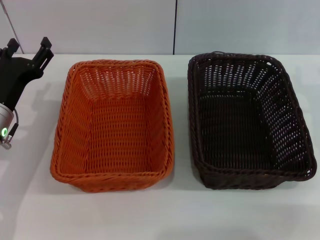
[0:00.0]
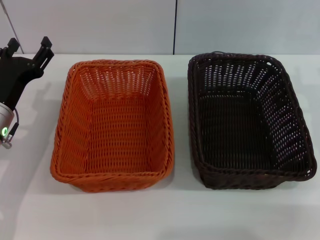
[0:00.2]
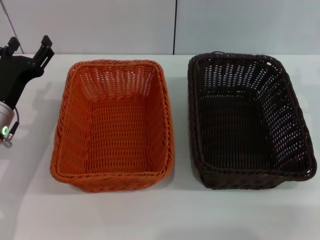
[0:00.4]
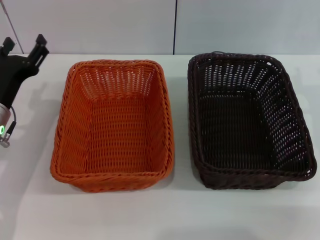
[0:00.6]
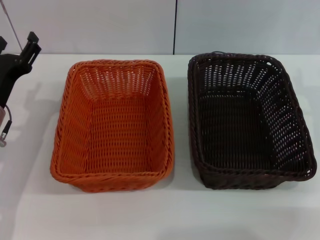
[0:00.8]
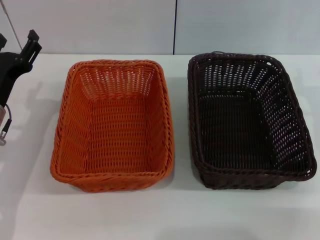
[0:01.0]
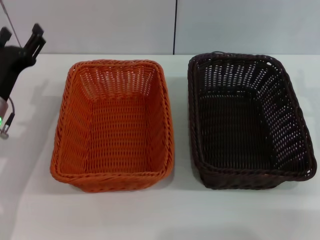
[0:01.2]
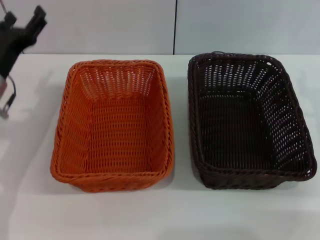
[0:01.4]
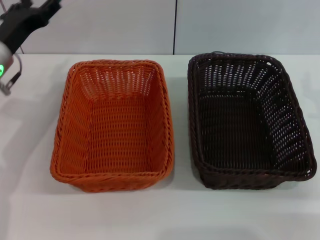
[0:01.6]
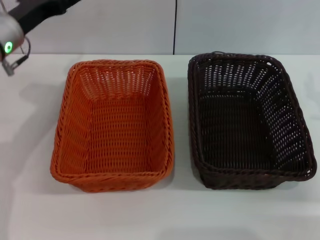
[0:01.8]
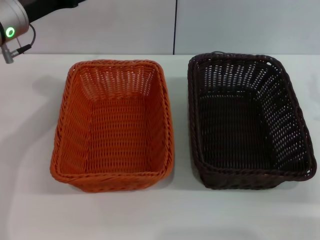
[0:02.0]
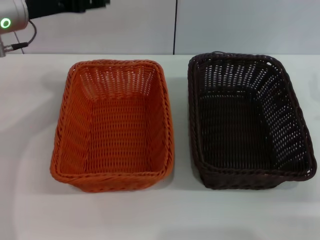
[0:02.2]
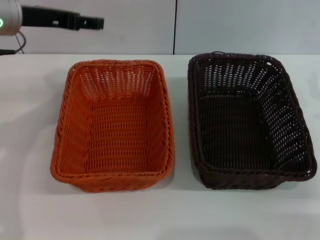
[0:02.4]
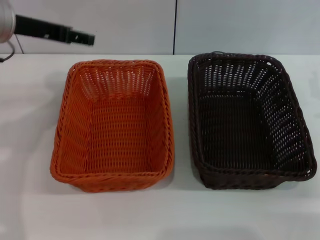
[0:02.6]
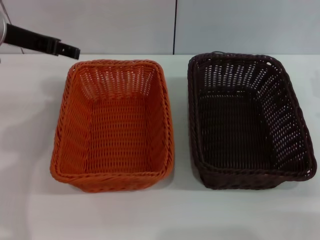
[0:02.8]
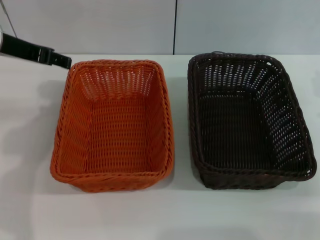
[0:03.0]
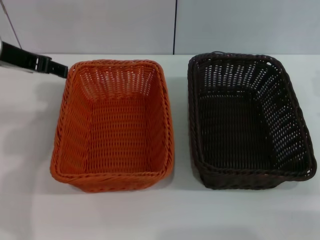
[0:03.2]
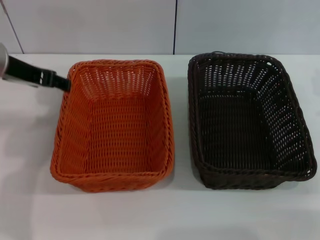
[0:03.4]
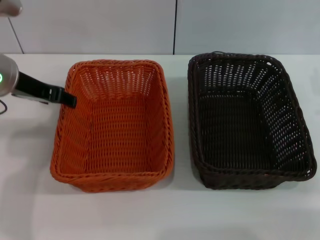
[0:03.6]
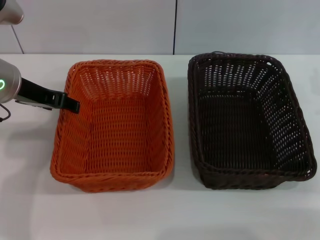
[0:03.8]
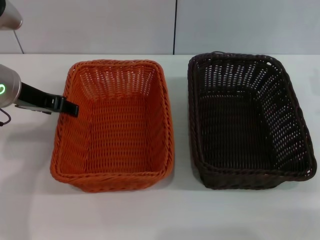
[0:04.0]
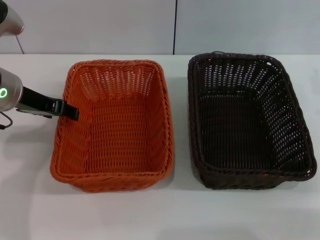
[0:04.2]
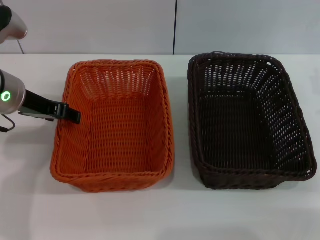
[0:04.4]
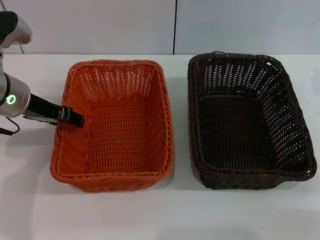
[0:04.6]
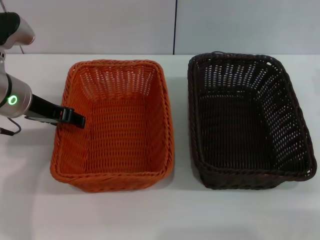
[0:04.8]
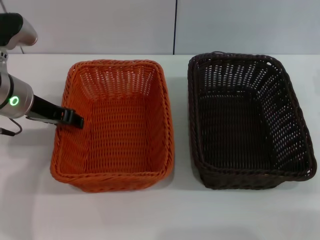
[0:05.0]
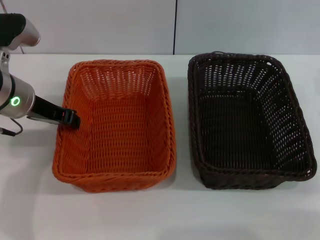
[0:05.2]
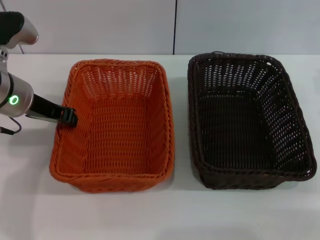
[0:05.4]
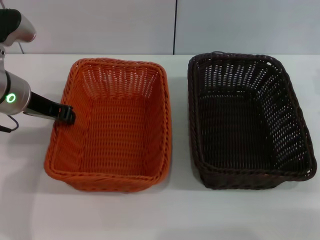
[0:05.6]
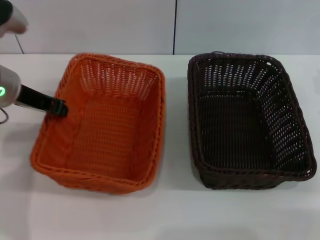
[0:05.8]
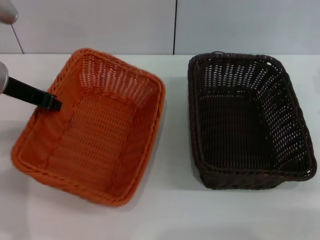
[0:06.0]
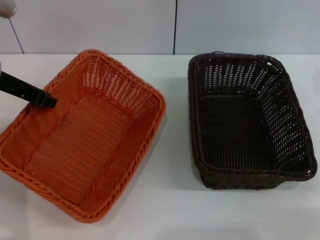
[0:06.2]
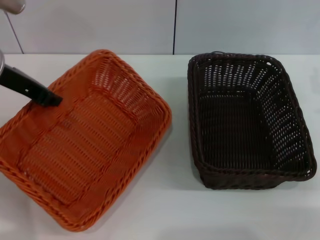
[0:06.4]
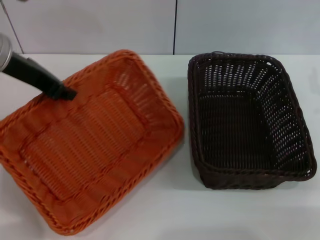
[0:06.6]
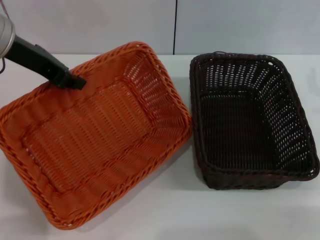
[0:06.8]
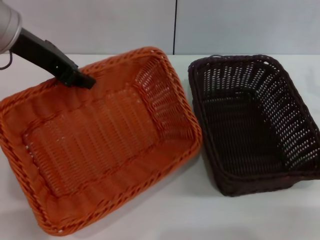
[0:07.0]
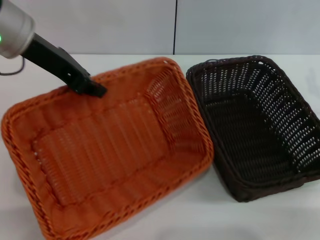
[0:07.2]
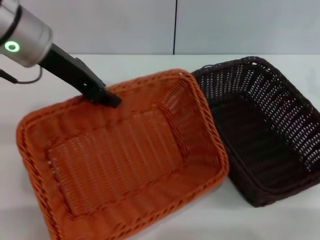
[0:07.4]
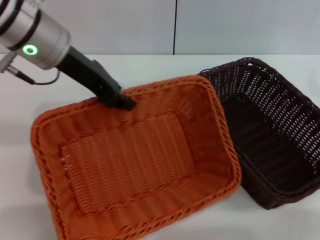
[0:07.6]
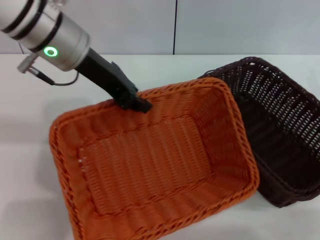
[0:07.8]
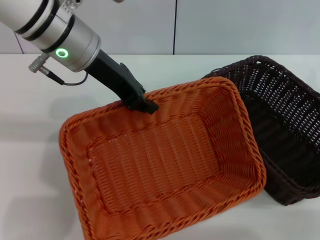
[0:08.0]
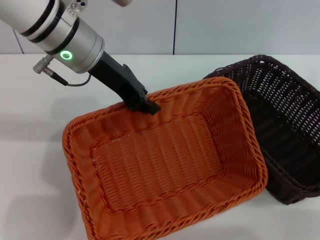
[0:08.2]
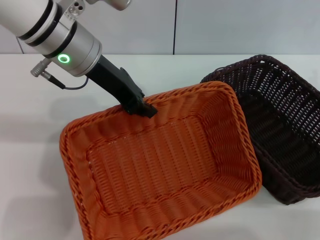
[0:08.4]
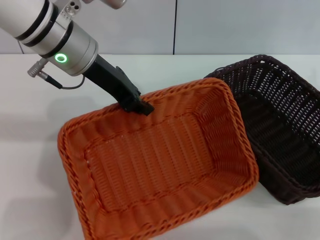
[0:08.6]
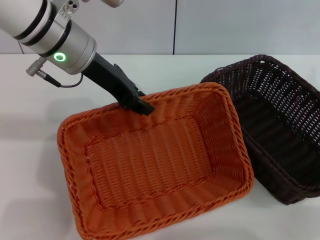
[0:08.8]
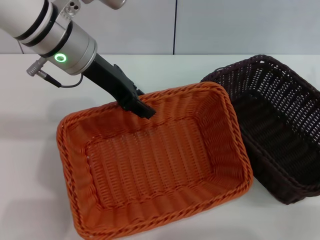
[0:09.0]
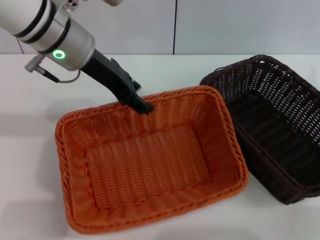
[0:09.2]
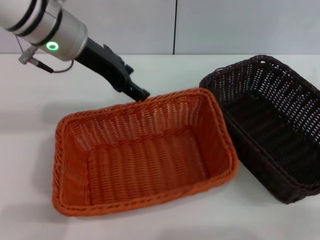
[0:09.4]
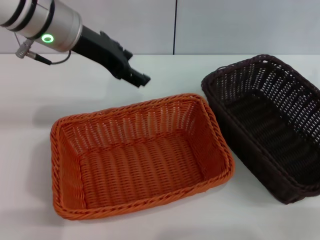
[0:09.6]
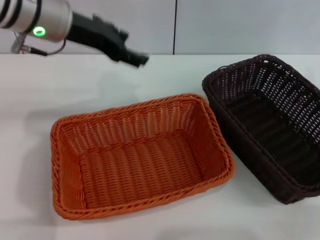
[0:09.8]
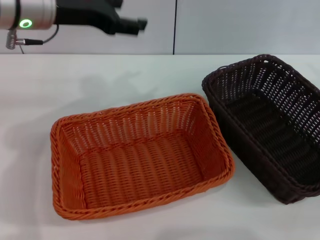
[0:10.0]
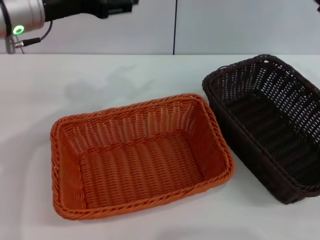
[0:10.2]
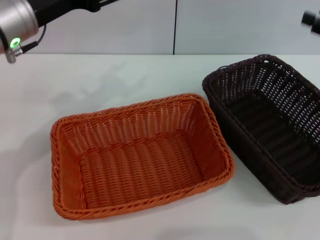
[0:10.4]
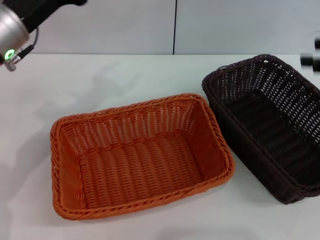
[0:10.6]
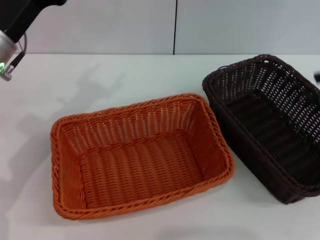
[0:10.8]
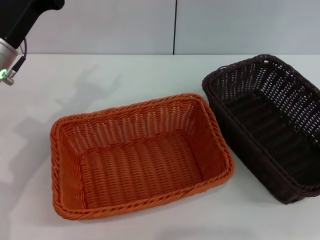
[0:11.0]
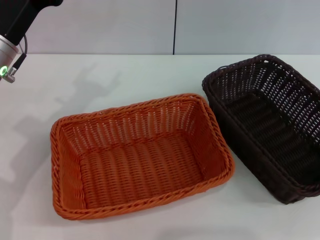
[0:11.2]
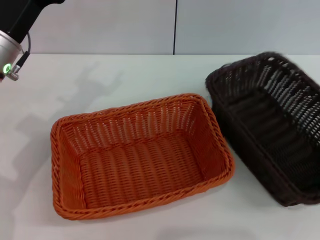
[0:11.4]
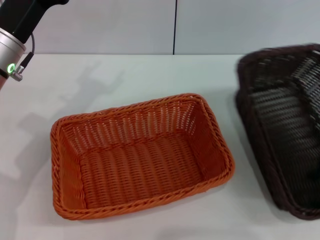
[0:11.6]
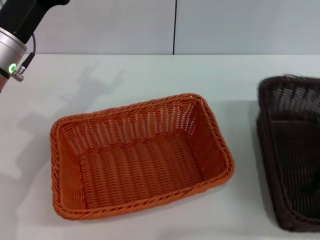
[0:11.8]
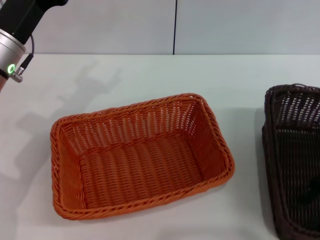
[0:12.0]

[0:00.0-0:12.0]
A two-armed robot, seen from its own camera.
Step, 0:00.0 to 0:06.2: Pick up the light basket with the left gripper.
Step, 0:06.6 to 0:09.4: Place the light basket in the center of view with the left gripper.
0:00.0 to 0:01.6: The left gripper is displaced upward and forward by approximately 10 cm.
0:01.6 to 0:03.0: The left gripper is displaced upward by roughly 10 cm.
0:03.0 to 0:04.4: The left gripper goes approximately 5 cm downward.
0:04.4 to 0:06.0: The left gripper closes its fingers.
0:06.0 to 0:07.6: The left gripper moves to the right and upward, about 10 cm.
0:09.0 to 0:10.4: The right gripper is displaced upward by some 10 cm; the left gripper moves to the left, roughly 5 cm, and opens its fingers.
0:10.4 to 0:12.0: The left gripper heads downward, covering about 5 cm. The right gripper heads backward and to the left, covering roughly 10 cm.

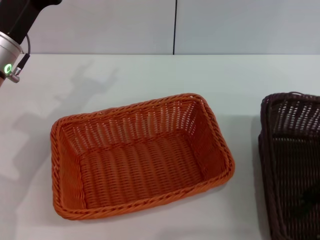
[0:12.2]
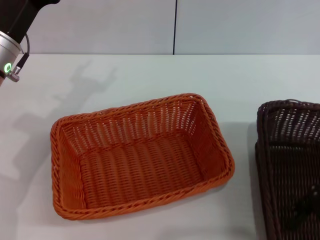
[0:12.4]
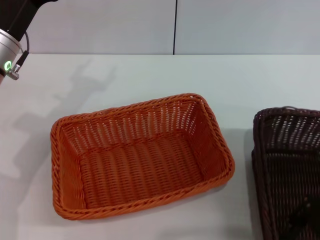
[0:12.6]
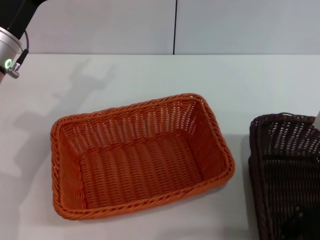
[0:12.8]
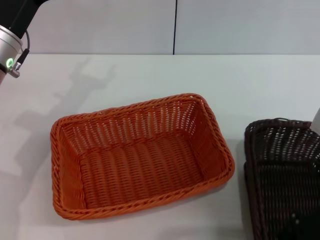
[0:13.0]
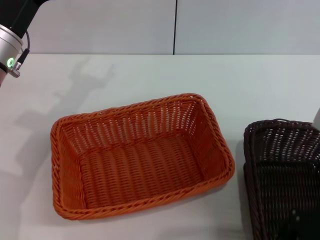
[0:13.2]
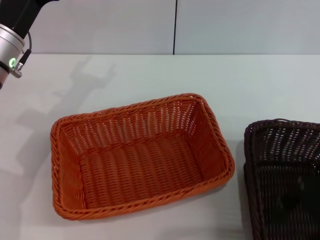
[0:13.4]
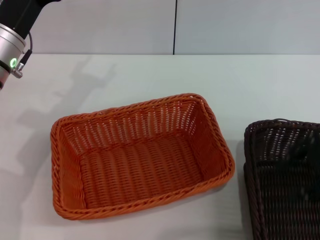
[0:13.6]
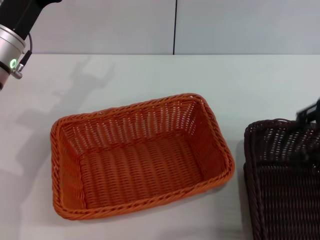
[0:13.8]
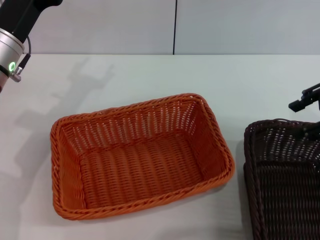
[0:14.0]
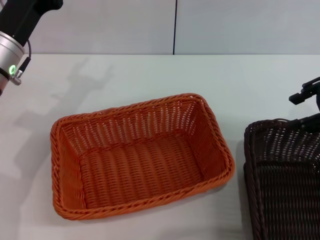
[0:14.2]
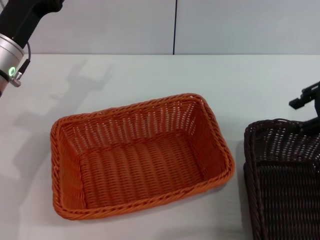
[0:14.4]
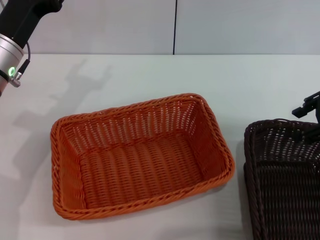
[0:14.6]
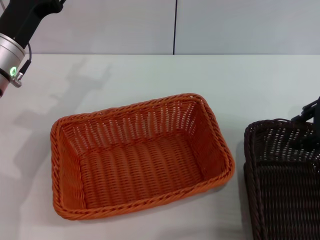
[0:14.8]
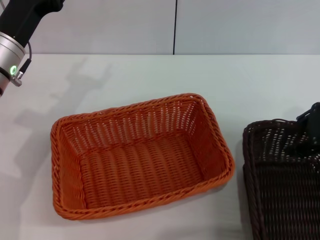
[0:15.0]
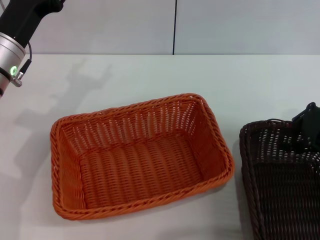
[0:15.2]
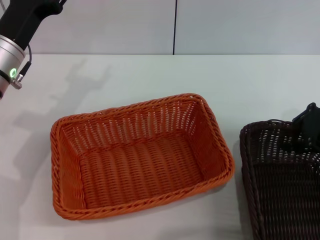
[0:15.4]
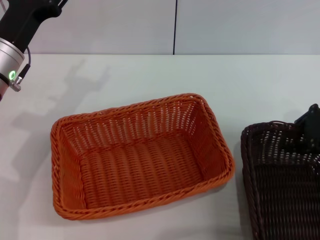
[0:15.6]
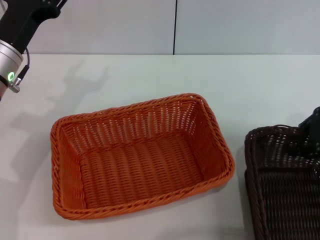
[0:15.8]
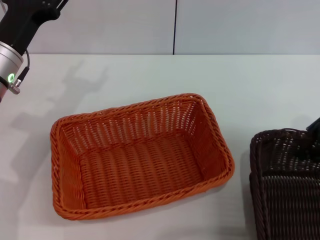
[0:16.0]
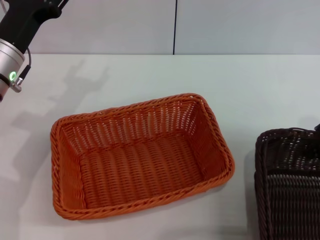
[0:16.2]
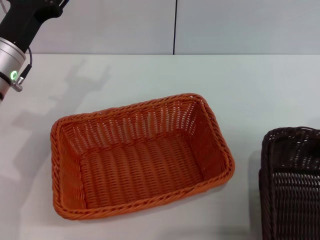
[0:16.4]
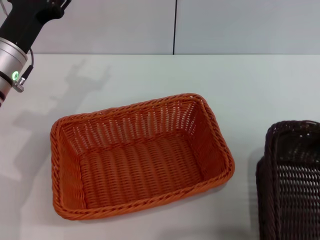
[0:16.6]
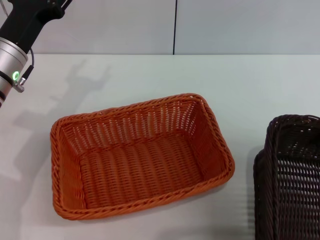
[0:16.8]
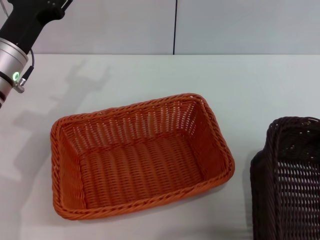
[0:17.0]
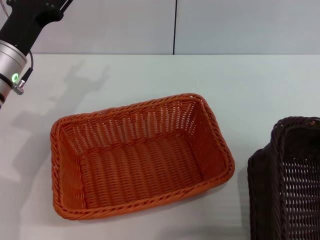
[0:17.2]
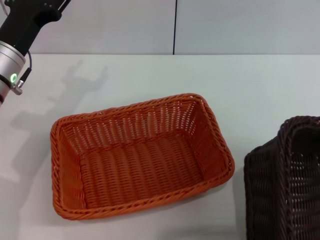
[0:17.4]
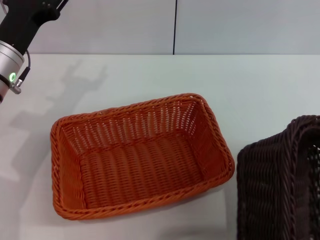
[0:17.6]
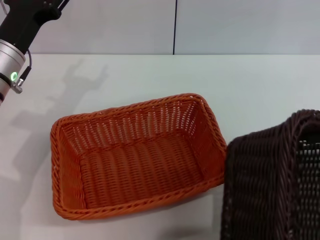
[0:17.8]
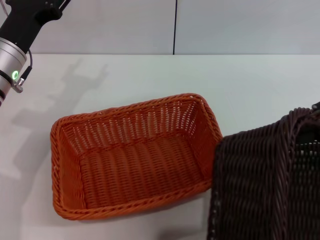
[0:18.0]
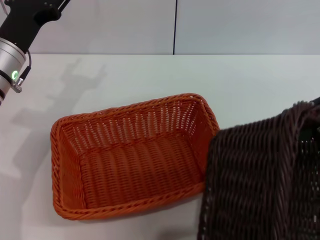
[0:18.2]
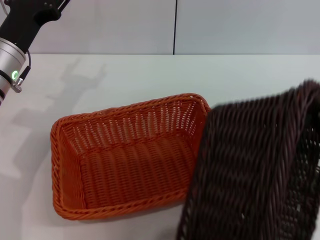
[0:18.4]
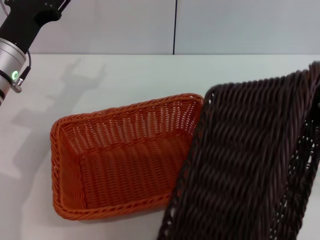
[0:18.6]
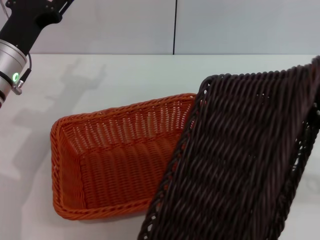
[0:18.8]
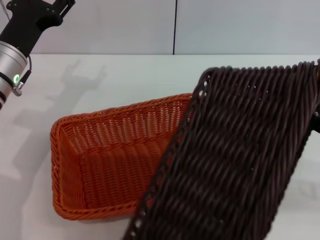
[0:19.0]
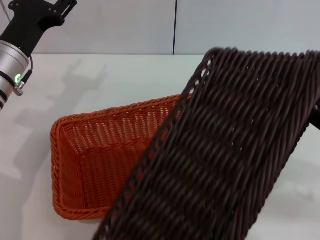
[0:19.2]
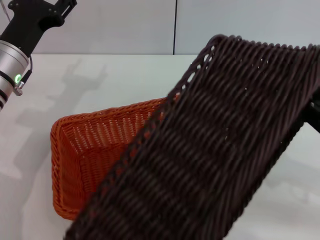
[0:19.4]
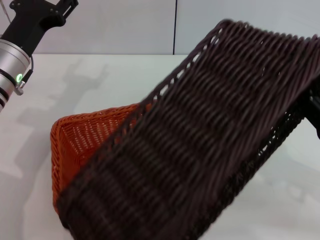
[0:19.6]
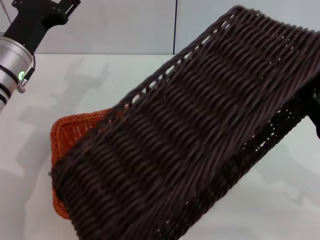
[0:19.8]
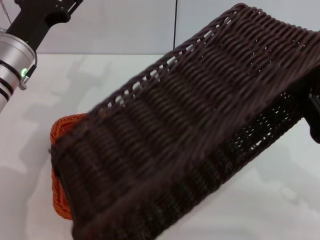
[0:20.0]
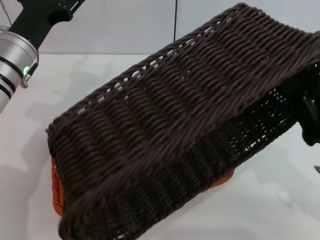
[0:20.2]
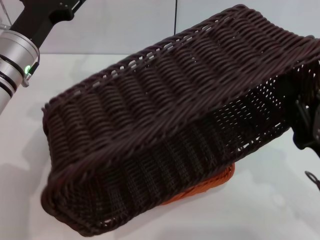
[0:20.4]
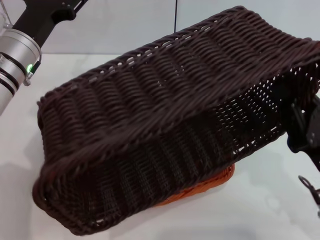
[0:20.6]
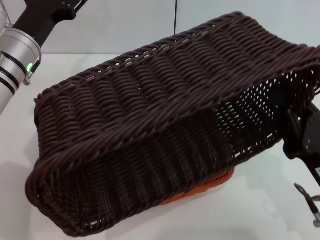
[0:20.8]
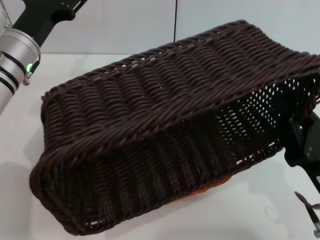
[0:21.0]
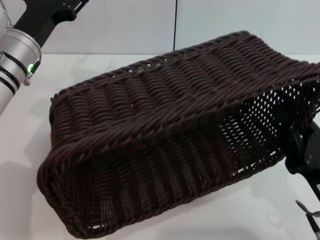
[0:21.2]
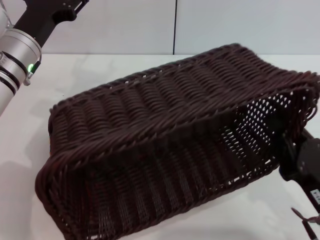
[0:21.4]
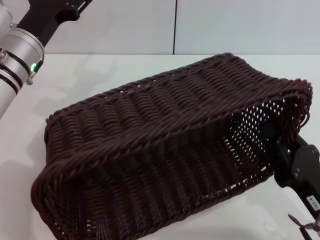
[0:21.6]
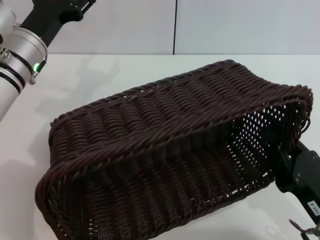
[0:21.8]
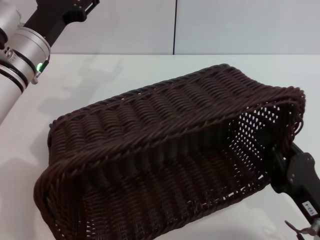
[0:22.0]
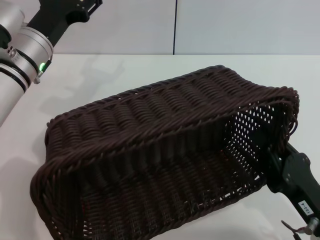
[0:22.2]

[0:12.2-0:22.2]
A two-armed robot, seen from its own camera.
Step, 0:12.2 to 0:17.2: Pick up the dark basket with the right gripper.
0:12.2 to 0:13.6: The grippers stay close to where they were, moving slightly.
0:13.6 to 0:15.0: The right gripper is displaced forward by about 5 cm.
0:15.0 to 0:16.4: The right gripper shifts by roughly 5 cm, and closes up.
0:18.0 to 0:19.4: The right gripper shifts approximately 10 cm downward.
0:19.4 to 0:20.8: The right gripper shifts about 10 cm to the left, downward and backward.
